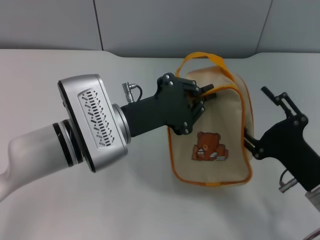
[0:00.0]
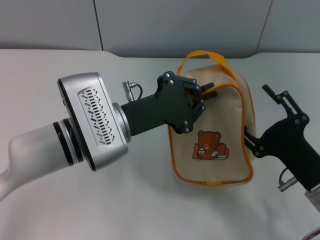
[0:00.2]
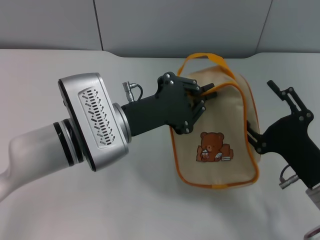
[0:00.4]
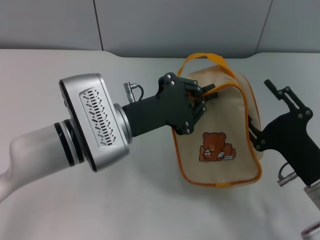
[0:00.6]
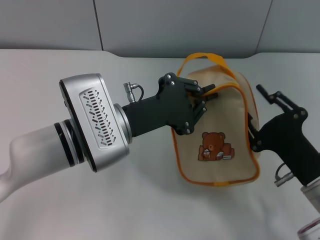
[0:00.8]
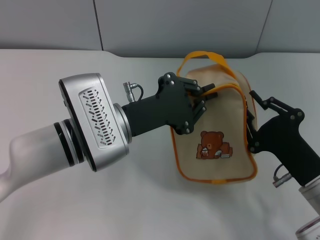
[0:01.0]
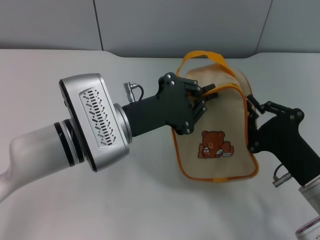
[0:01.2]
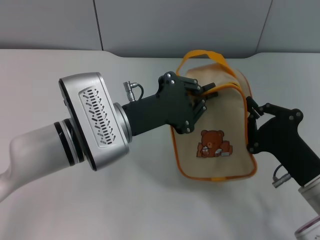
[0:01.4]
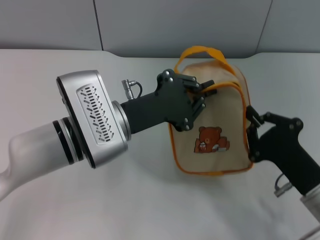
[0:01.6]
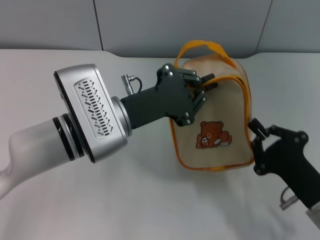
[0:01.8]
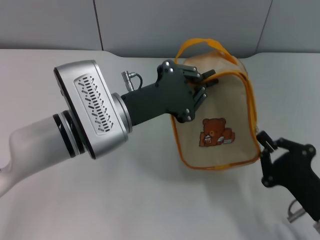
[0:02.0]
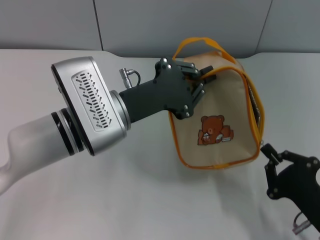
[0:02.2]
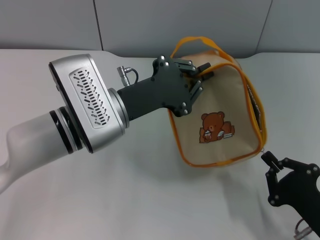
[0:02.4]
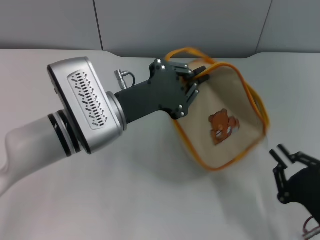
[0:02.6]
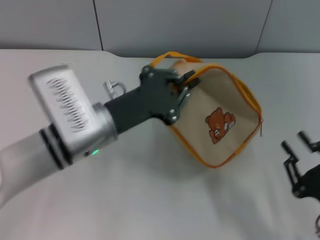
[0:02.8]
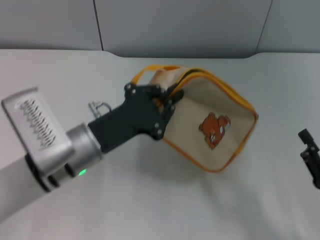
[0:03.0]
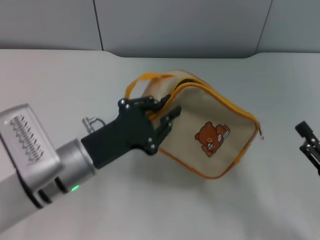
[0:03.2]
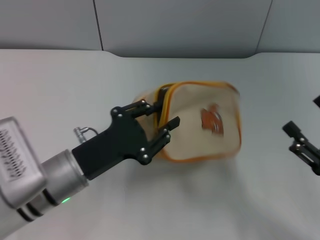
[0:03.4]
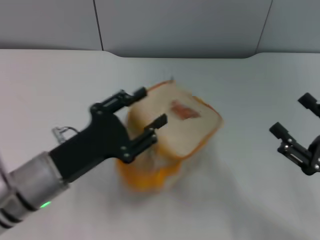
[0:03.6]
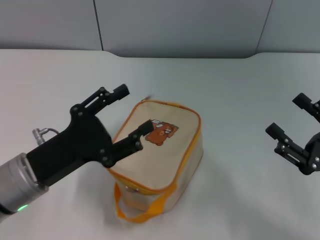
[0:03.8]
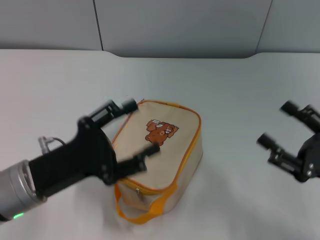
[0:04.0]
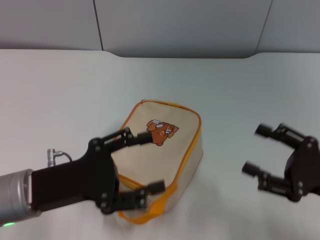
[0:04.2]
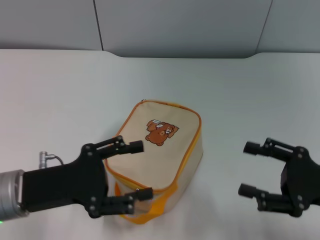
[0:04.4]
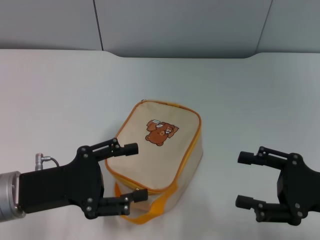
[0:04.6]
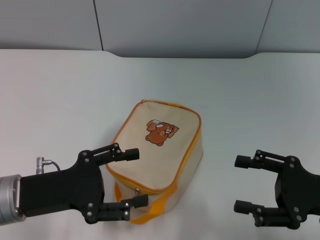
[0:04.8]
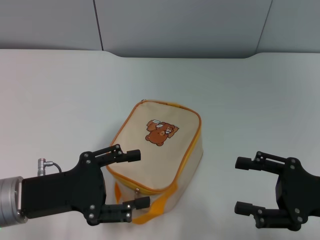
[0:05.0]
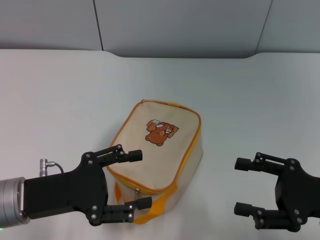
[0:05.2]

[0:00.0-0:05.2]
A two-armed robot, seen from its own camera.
Step, 0.0 to 2.6 s: Unzip the zipper of bag with right gripper.
Step, 2.8 to 4.0 s: Place the bag on the table with left gripper.
0.0 to 1.8 s: The right gripper closes its fingers.
1.8 to 3.4 s: The left gripper goes approximately 10 cm to the left, backward and downward, while the right gripper heads to the right, covering about 5 cm, and opens up.
3.4 to 5.2 s: The left gripper travels to the left by approximately 5 cm, and opens up.

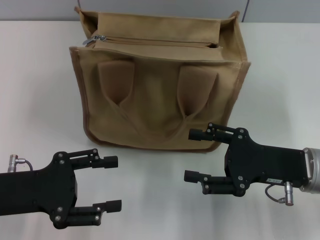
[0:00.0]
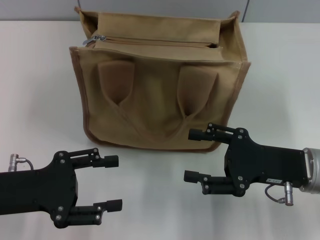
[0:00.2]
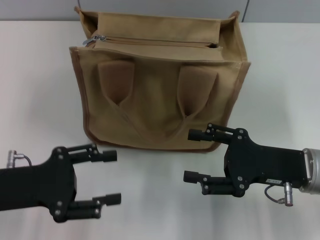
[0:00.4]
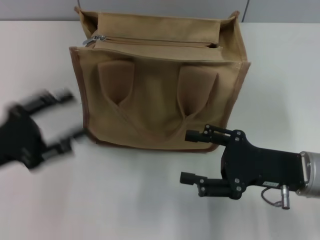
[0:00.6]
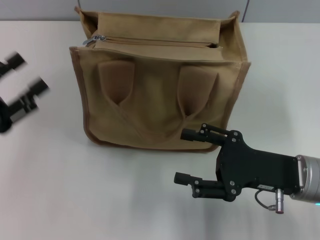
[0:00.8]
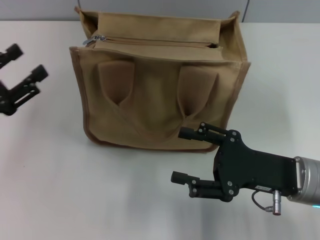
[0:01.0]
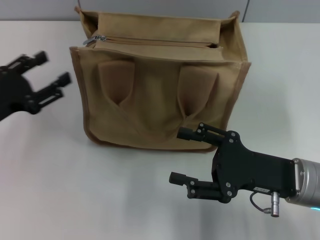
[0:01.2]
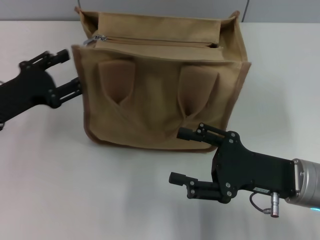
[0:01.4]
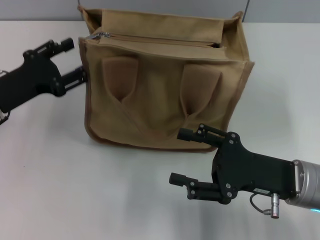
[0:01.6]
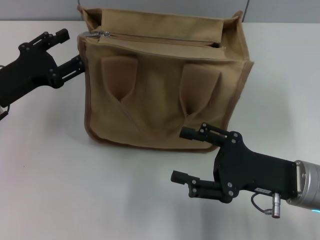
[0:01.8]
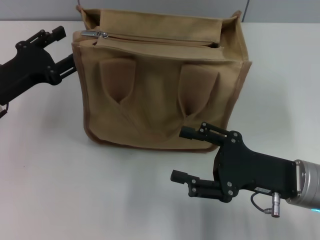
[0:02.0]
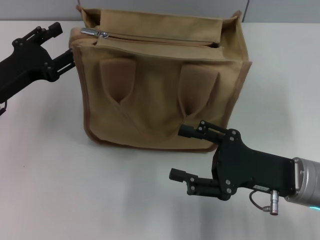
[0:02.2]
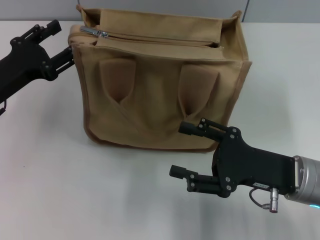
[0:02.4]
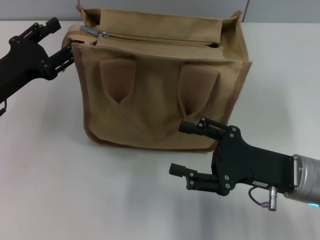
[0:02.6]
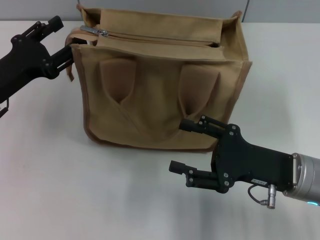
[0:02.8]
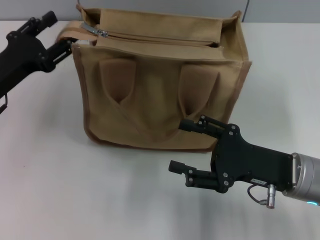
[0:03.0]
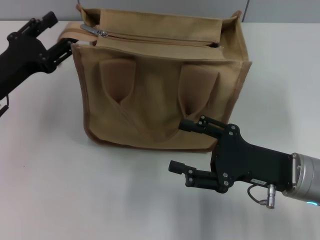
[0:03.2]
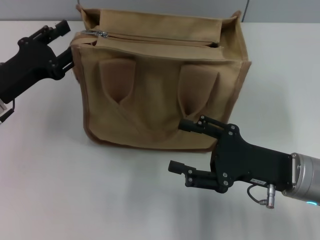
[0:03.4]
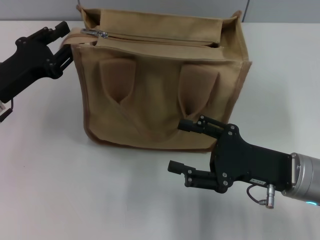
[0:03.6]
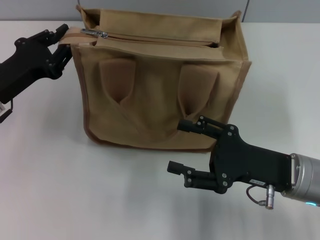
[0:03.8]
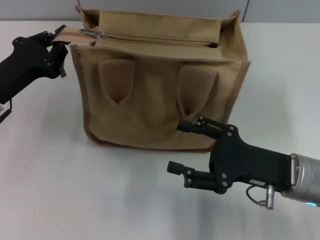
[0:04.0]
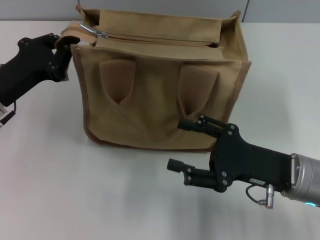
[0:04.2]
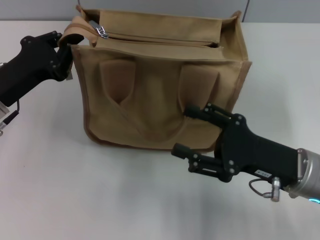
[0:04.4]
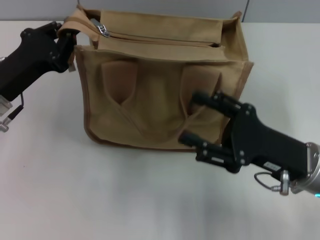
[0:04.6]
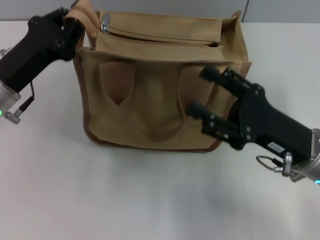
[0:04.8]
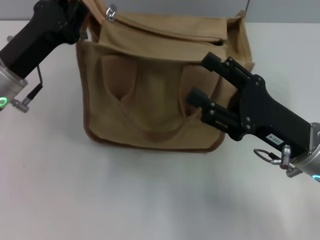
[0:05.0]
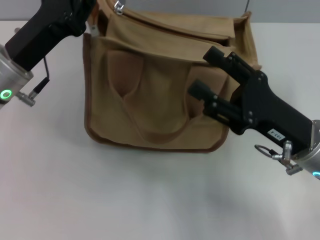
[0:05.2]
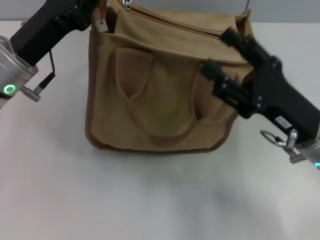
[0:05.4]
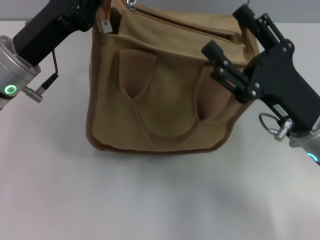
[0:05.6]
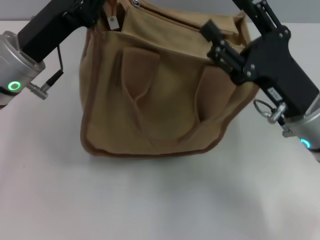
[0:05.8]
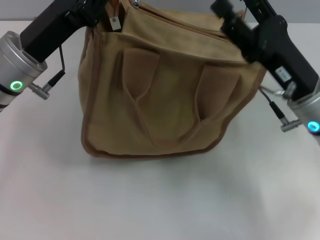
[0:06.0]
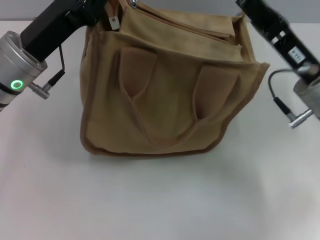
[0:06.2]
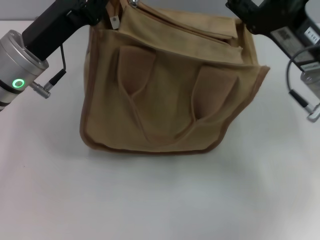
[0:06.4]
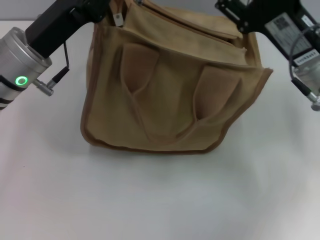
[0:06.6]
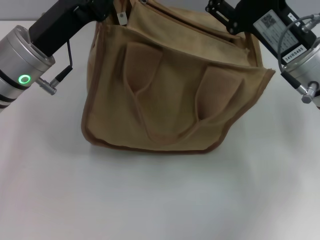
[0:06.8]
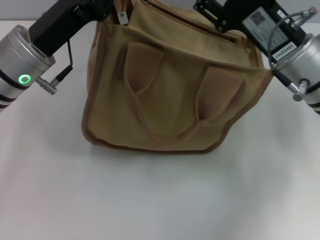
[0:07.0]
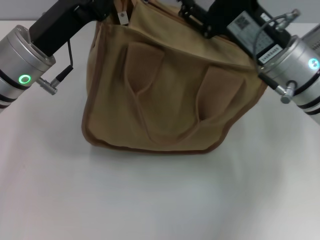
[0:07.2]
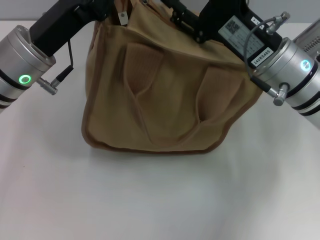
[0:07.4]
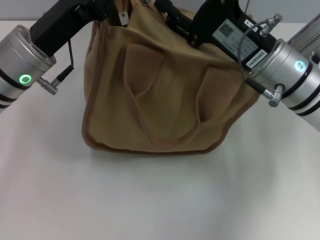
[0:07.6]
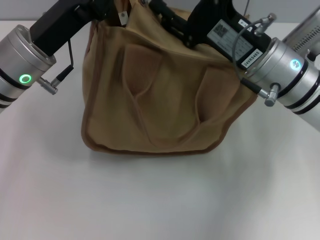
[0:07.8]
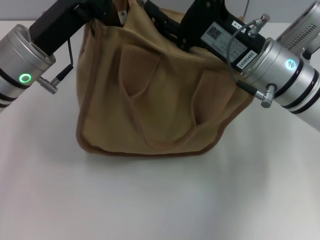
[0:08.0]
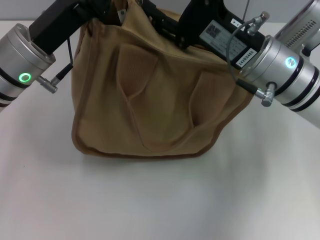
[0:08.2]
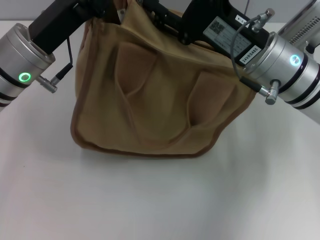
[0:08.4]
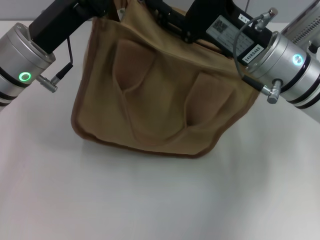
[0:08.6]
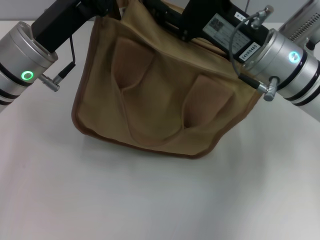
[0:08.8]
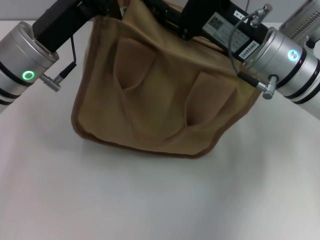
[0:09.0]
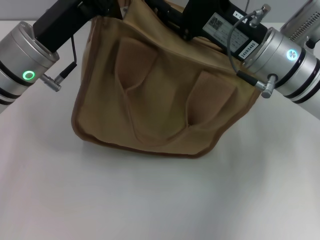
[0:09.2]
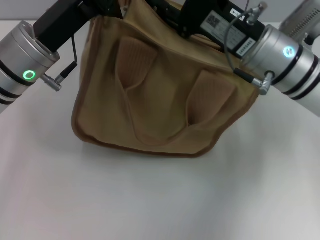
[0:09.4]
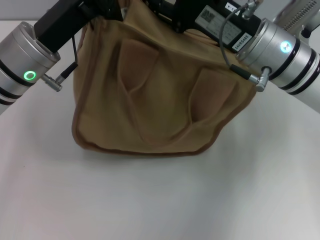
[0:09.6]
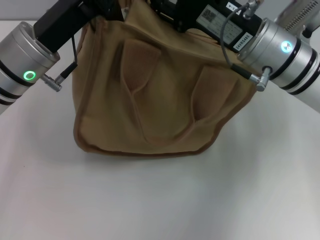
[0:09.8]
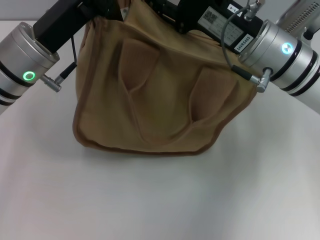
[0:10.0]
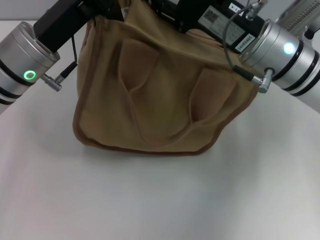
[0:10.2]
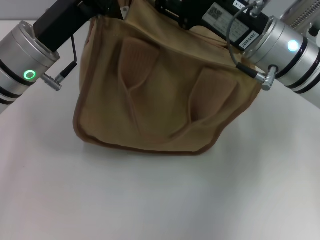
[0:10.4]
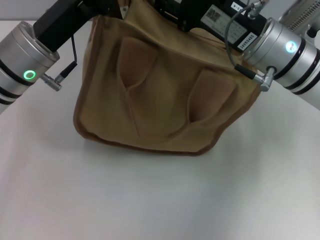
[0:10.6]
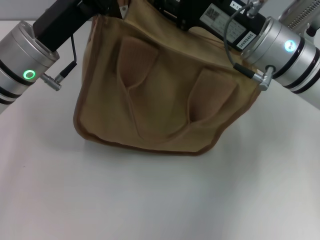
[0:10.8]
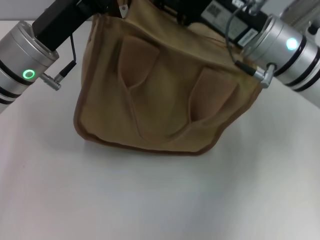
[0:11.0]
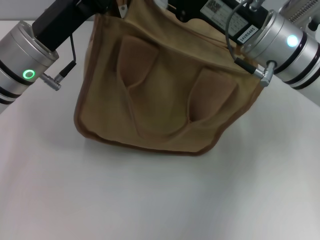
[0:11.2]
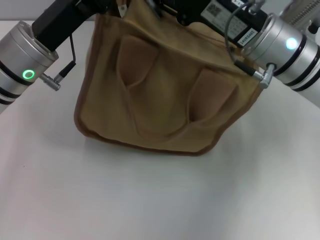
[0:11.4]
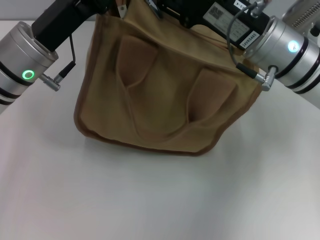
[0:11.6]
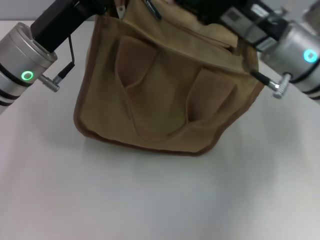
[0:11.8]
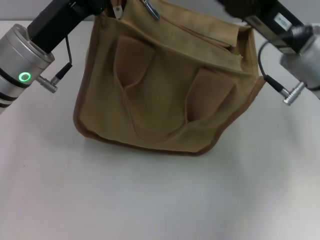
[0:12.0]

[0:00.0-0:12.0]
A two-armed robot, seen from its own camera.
0.0 to 1.6 s: The left gripper travels forward by approximately 10 cm.
1.6 to 3.0 s: There are only small adjustments of the grippers.
3.0 to 4.4 s: The left gripper closes its fingers.
4.4 to 6.0 s: The right gripper moves forward, roughly 5 cm. The left gripper travels to the right by some 5 cm.
6.0 to 7.6 s: The right gripper ends up some 5 cm from where it was.
7.6 to 10.4 s: There are only small adjustments of the grippers.

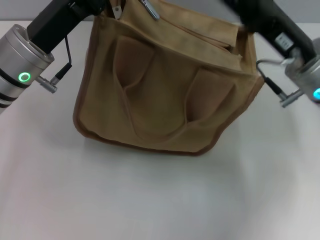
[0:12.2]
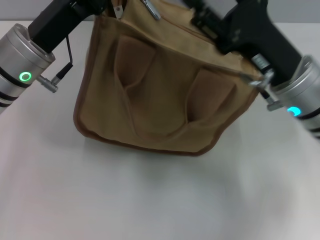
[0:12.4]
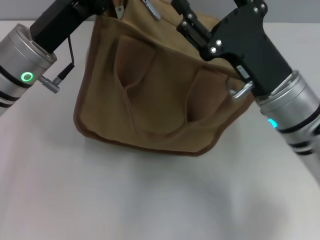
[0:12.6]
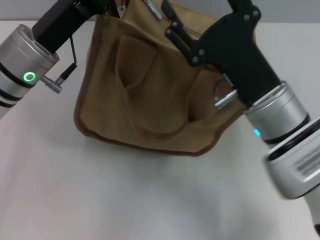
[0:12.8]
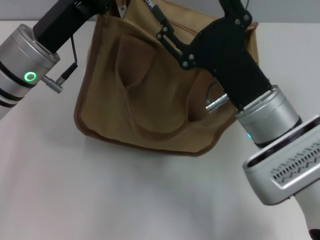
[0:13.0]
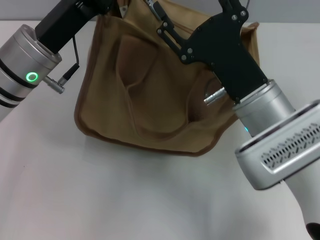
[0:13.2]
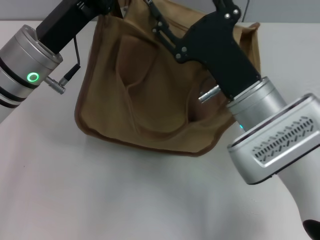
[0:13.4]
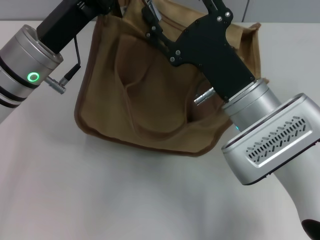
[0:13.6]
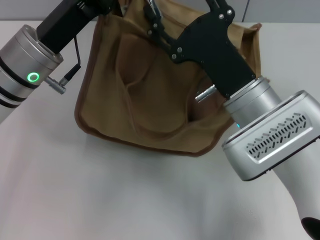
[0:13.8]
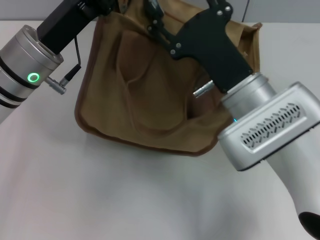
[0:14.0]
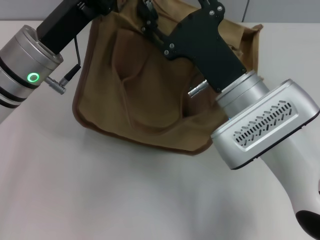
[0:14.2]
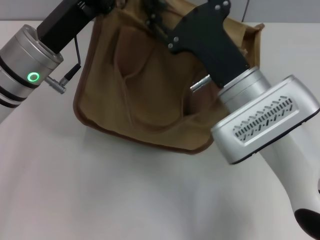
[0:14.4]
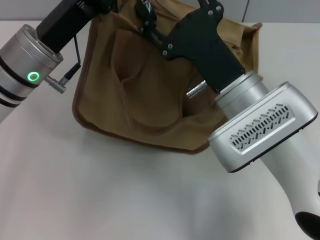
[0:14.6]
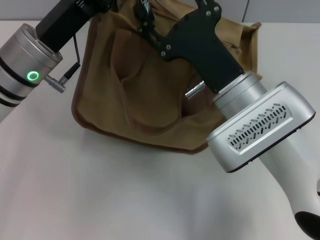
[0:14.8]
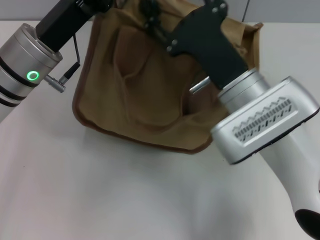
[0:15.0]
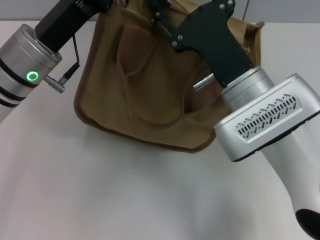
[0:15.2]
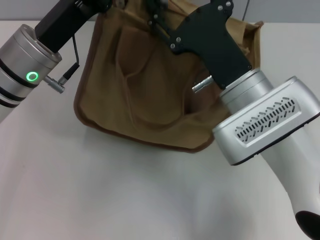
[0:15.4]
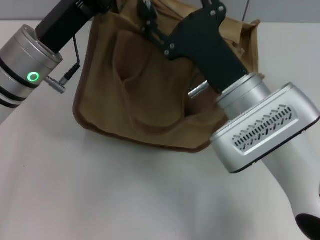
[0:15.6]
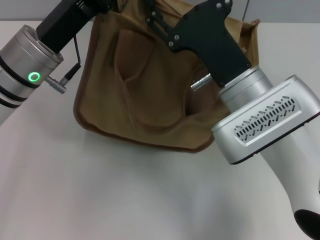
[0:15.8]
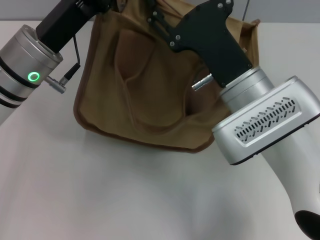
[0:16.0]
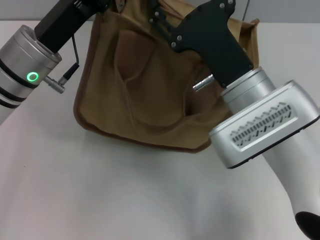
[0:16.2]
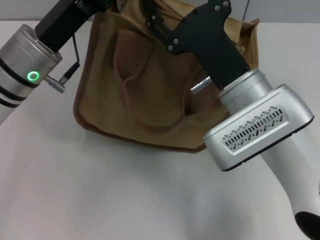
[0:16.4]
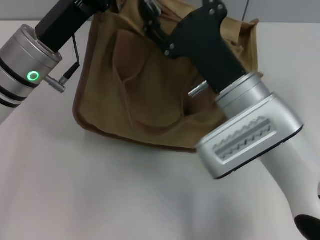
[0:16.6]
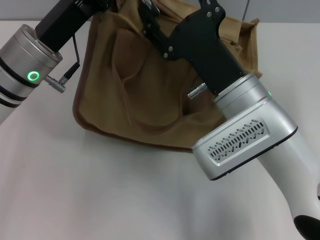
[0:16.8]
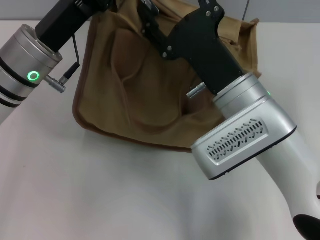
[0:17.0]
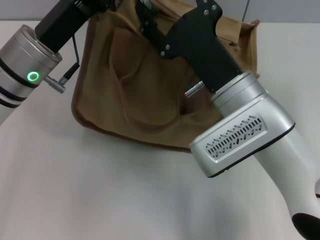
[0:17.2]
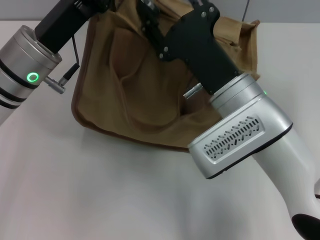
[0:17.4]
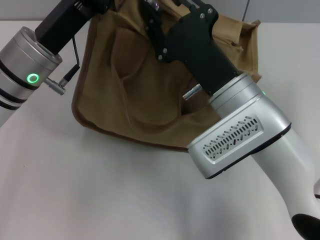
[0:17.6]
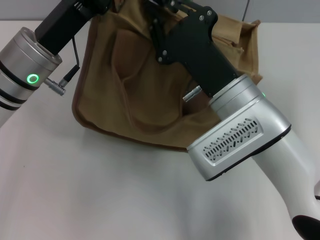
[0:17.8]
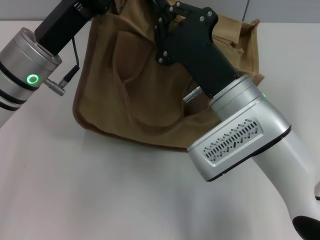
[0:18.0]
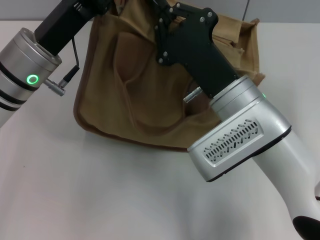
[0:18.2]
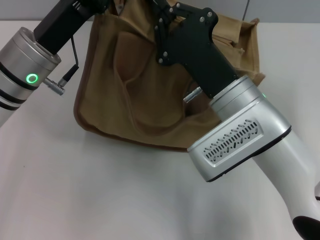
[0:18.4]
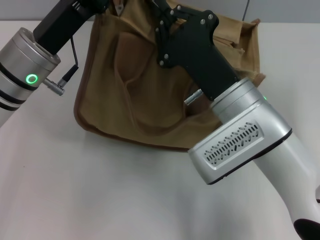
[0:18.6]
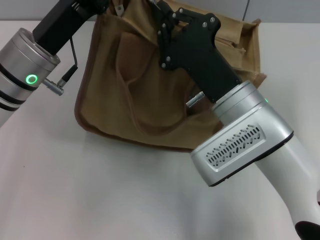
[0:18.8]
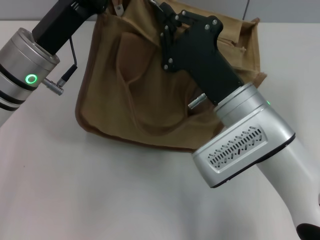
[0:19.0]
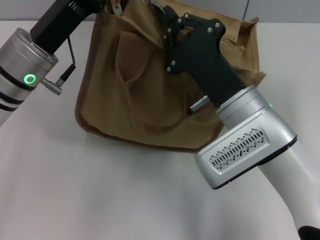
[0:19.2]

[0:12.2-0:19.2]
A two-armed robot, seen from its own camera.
12.2 to 13.6 s: The right gripper goes some 10 cm to the left.
13.6 to 16.4 s: The grippers stay close to where they were, moving slightly.
16.4 to 17.8 s: The right gripper closes up.
17.8 to 19.2 s: The right gripper closes.
